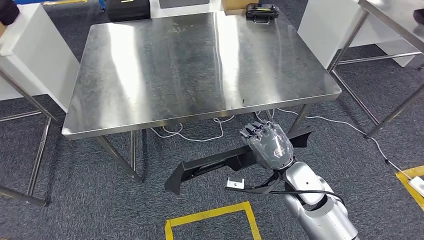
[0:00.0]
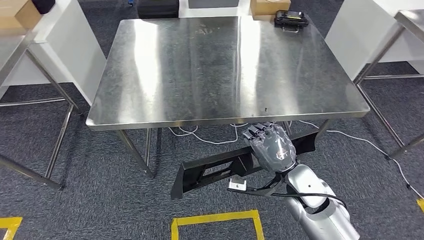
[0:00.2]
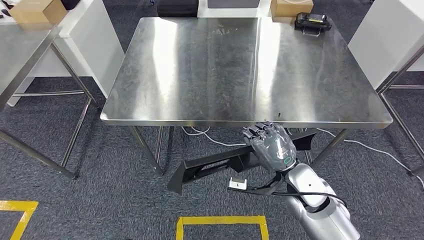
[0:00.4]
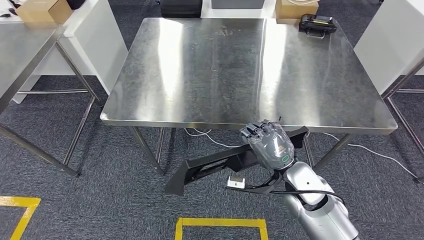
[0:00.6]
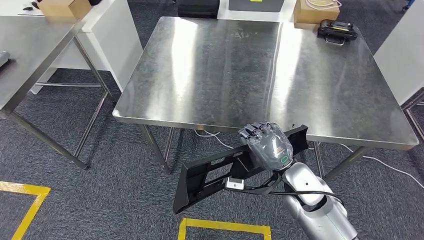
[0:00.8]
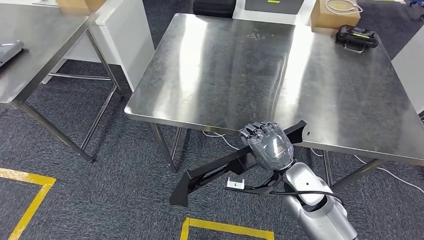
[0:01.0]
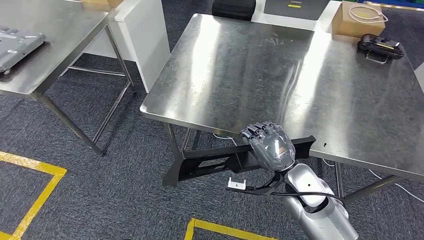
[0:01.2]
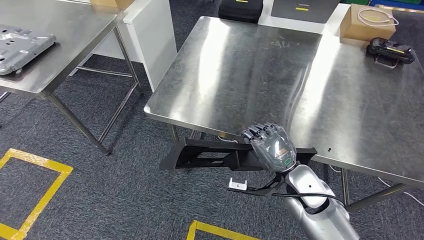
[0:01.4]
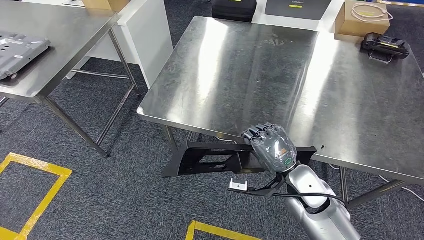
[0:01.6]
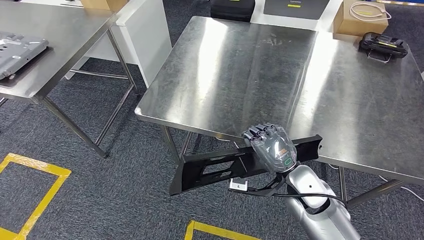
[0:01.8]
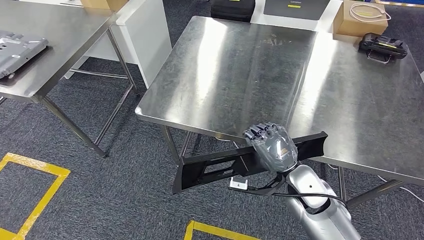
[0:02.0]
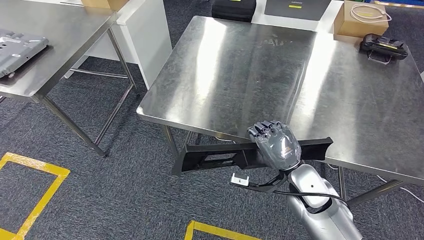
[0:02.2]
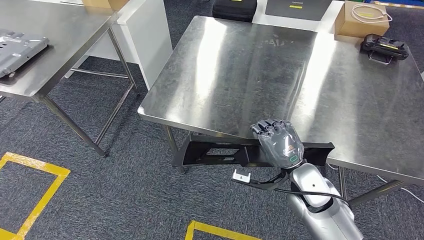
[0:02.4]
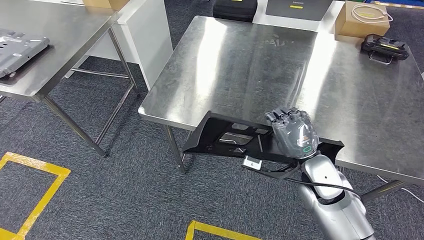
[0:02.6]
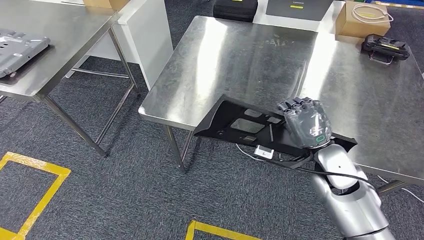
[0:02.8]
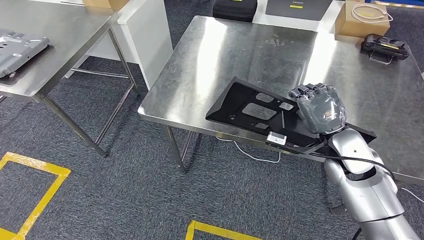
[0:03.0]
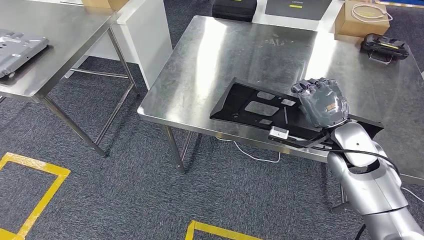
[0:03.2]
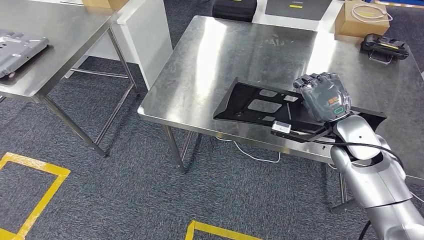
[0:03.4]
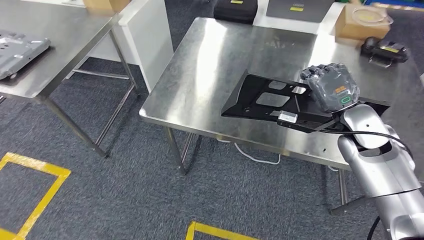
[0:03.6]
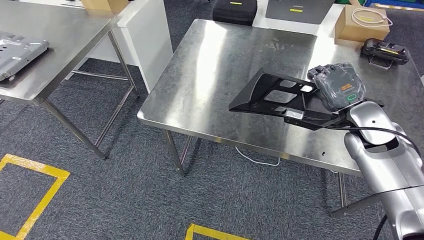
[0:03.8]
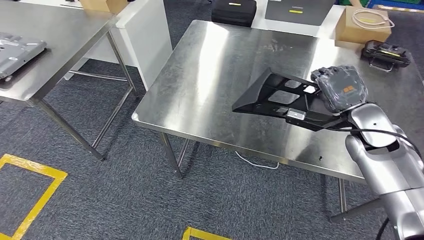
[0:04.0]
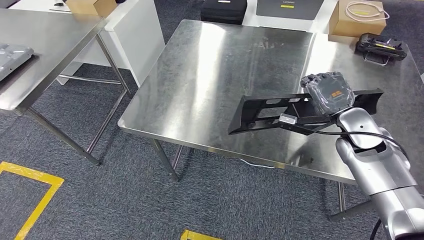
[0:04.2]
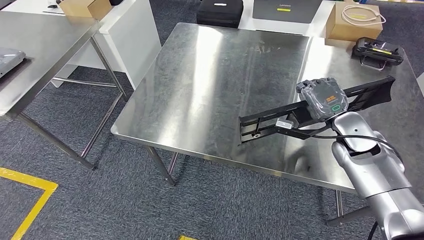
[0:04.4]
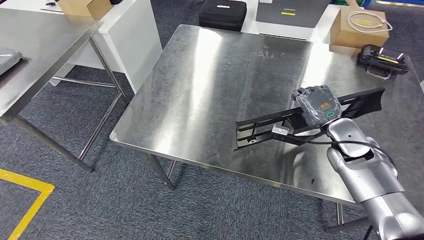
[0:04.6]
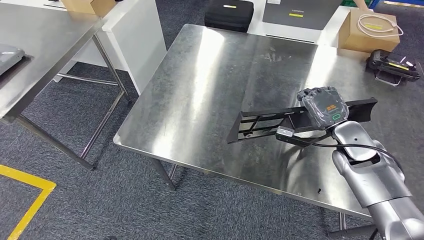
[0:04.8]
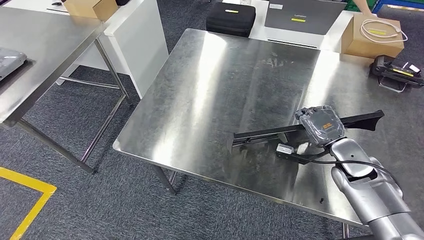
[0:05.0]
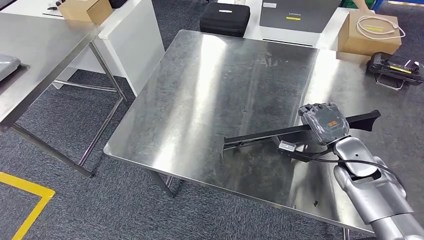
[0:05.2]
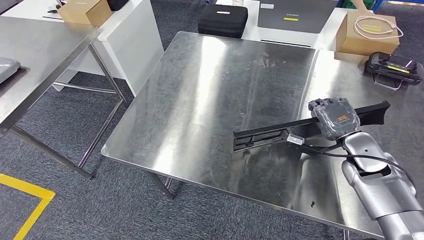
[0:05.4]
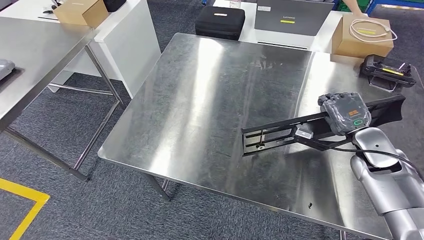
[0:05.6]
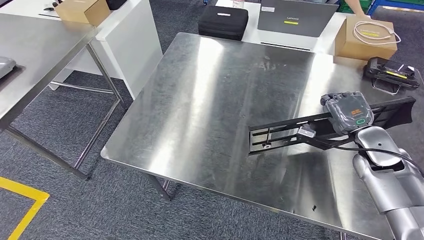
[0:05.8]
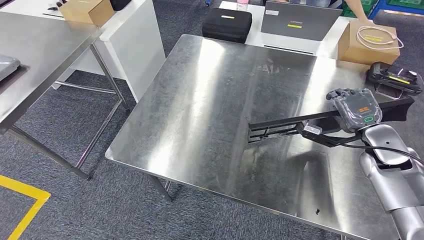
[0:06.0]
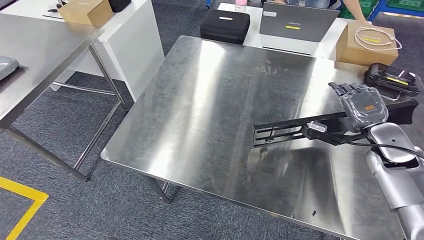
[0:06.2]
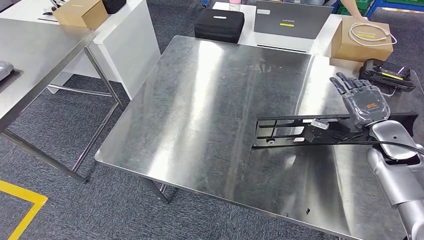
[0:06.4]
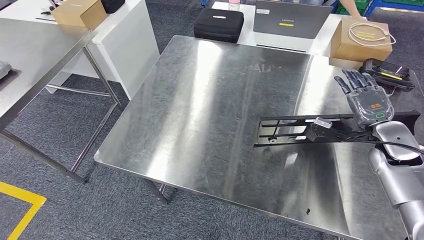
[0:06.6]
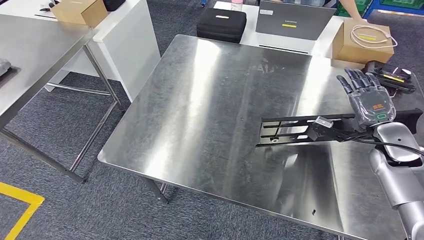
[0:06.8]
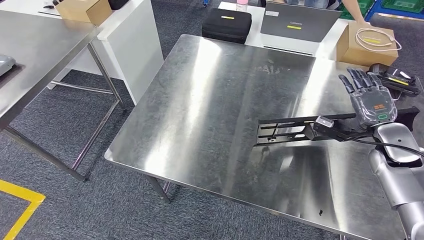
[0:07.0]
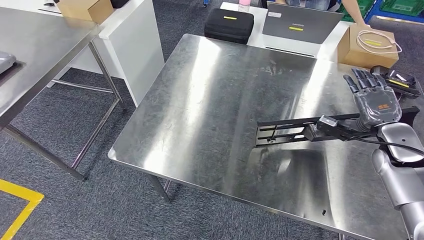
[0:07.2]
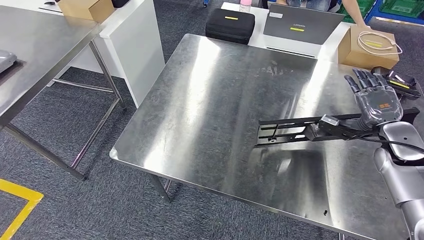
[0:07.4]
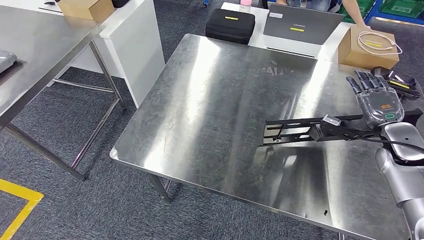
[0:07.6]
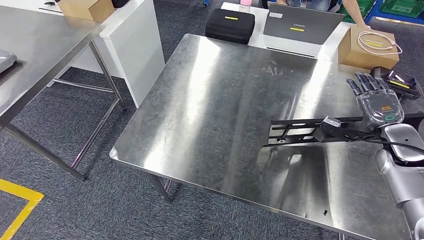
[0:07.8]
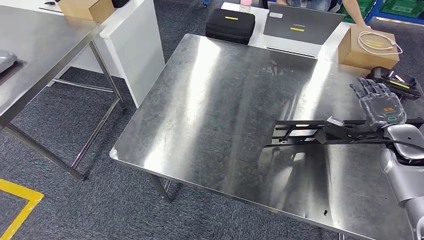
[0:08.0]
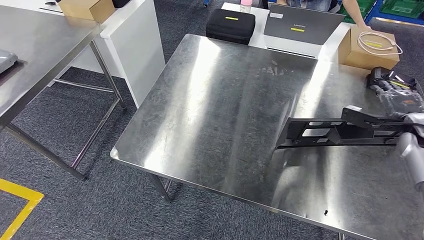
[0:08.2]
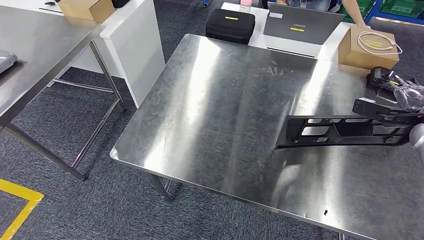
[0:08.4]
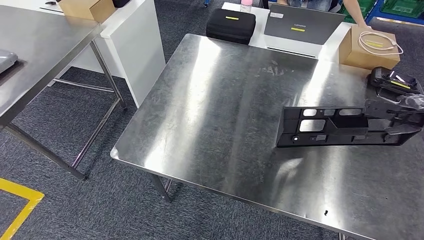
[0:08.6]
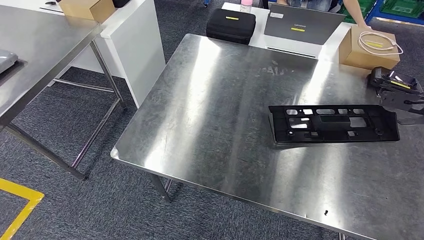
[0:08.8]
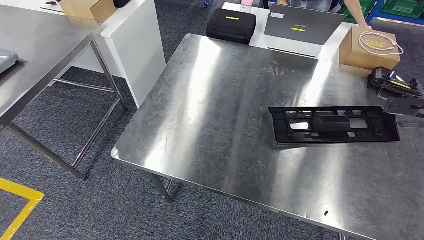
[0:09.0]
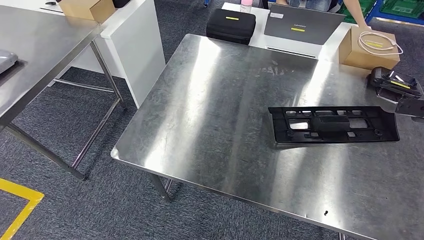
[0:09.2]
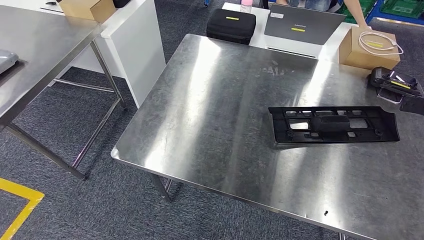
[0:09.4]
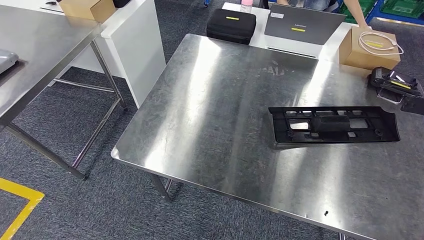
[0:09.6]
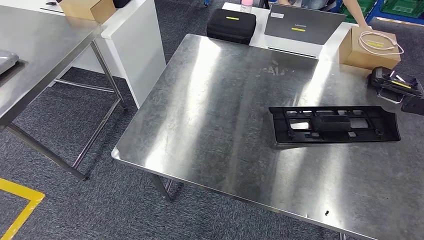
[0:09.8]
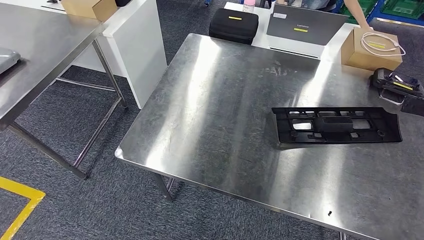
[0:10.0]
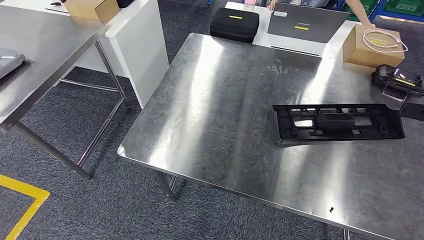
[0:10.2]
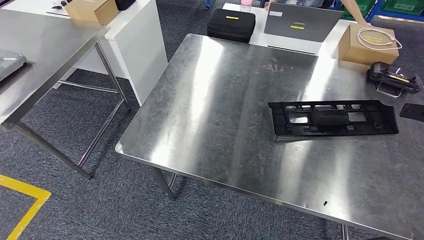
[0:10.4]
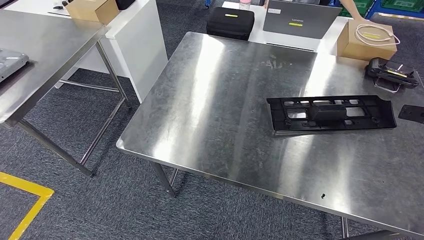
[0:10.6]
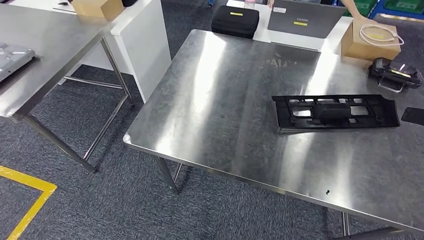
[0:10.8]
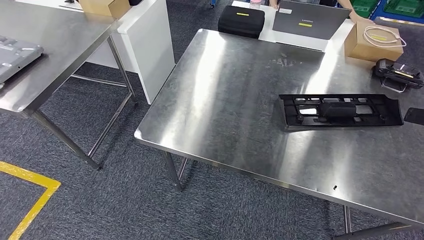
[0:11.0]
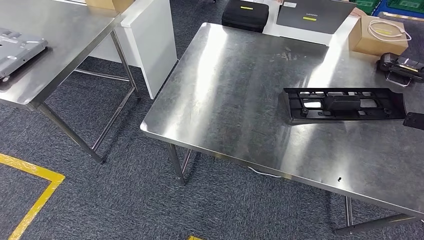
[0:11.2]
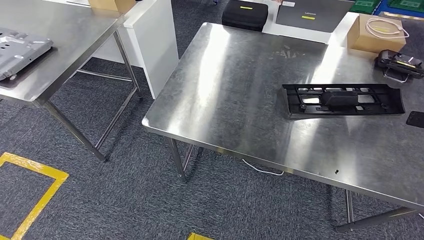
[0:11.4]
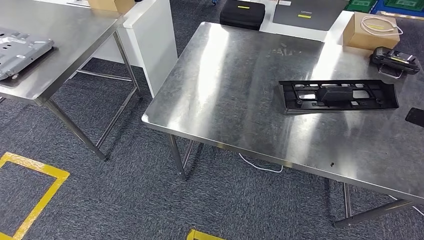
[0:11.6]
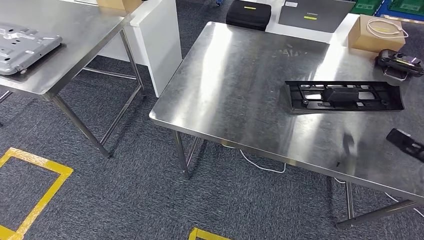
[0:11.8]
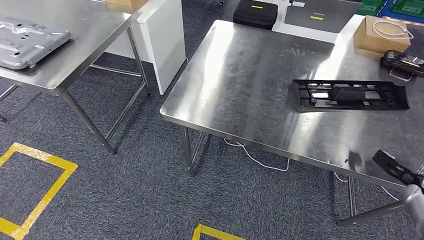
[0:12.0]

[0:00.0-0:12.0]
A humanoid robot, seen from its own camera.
Step, 0:00.0 to 0:09.0: Insert the large material into the corresponding slot on the workbench.
0:07.6 to 0:09.0: The right hand moves to the right and upward, about 15 cm.

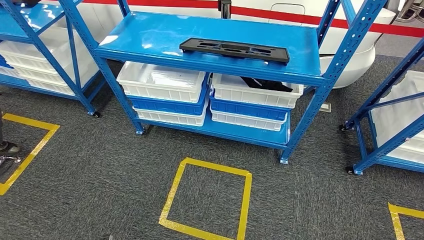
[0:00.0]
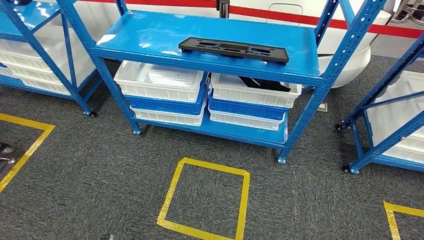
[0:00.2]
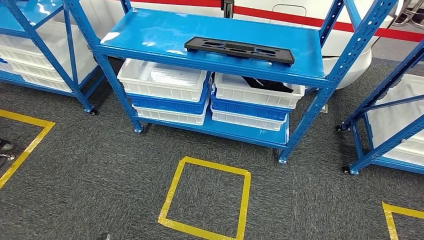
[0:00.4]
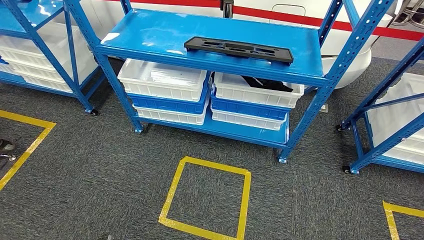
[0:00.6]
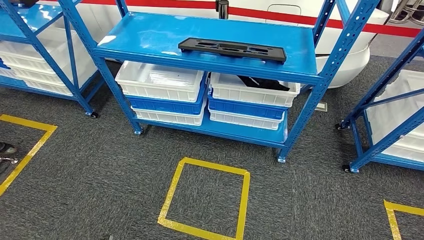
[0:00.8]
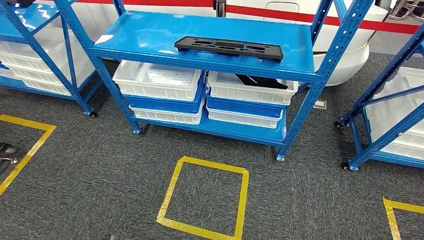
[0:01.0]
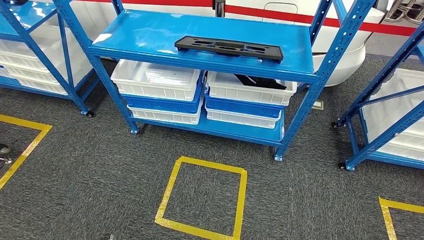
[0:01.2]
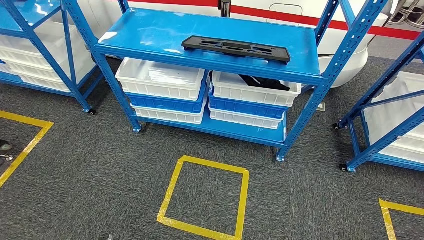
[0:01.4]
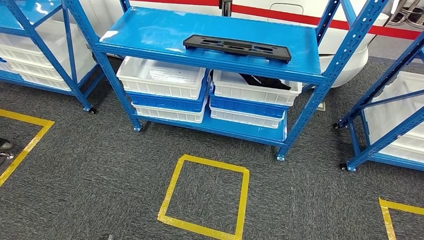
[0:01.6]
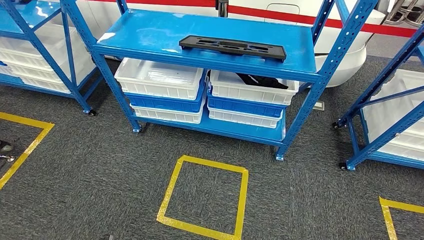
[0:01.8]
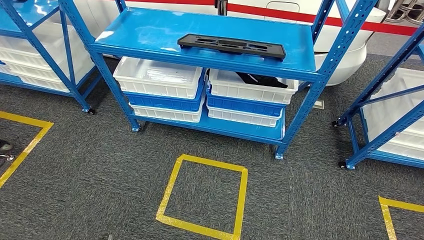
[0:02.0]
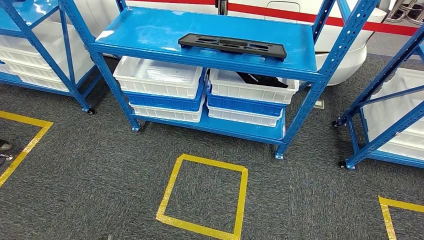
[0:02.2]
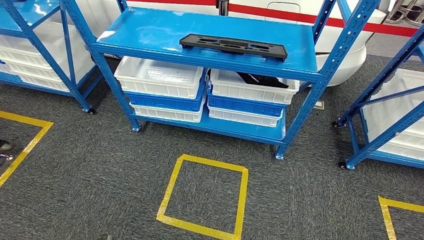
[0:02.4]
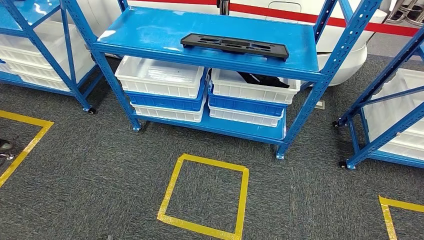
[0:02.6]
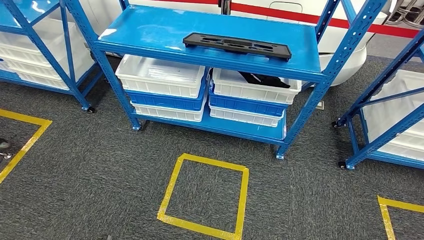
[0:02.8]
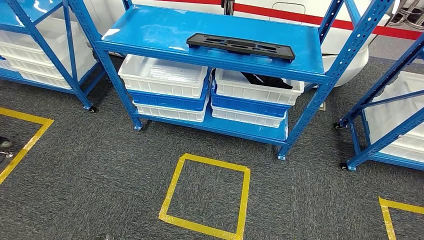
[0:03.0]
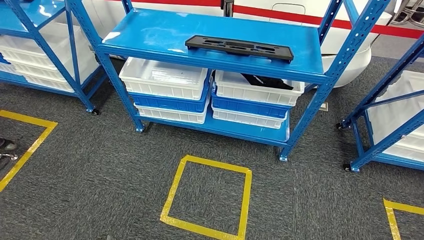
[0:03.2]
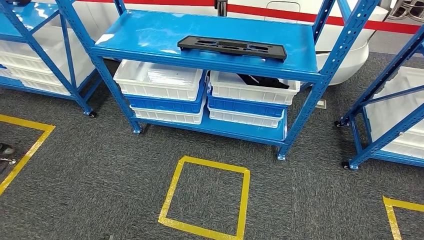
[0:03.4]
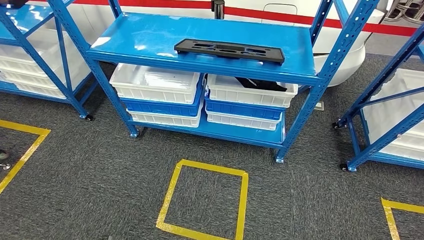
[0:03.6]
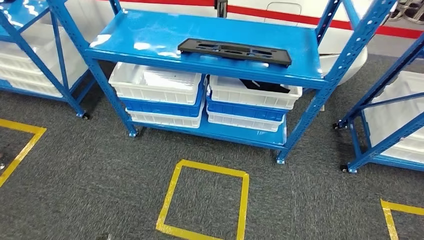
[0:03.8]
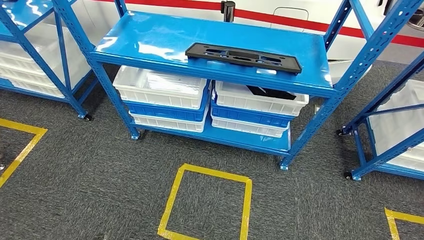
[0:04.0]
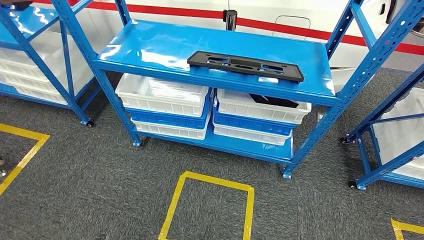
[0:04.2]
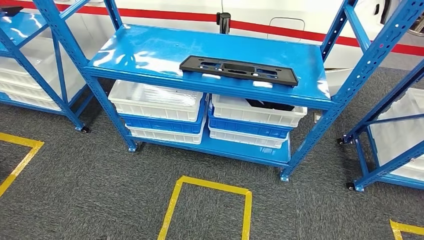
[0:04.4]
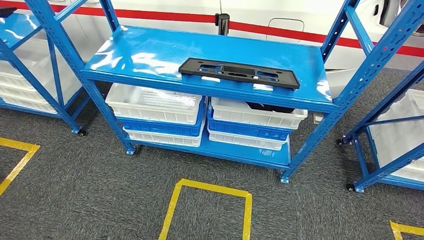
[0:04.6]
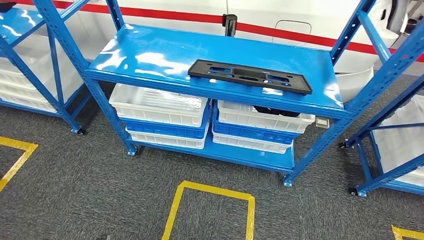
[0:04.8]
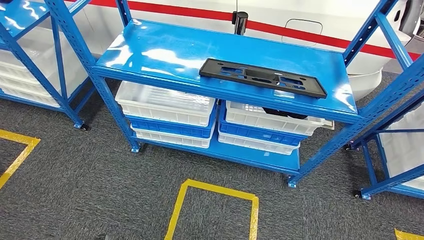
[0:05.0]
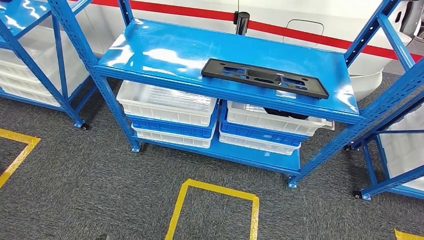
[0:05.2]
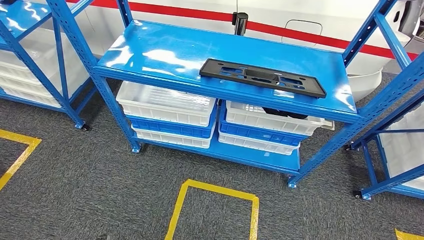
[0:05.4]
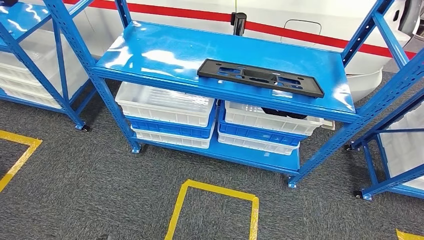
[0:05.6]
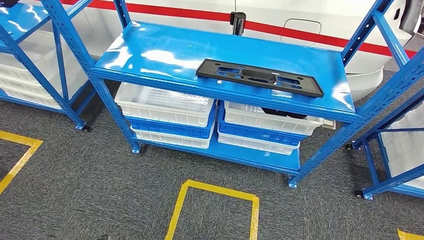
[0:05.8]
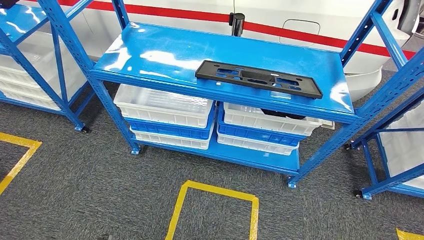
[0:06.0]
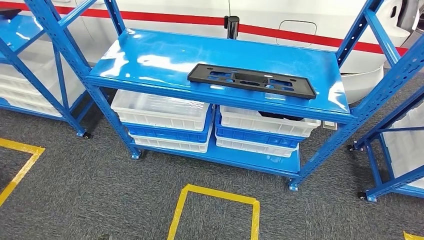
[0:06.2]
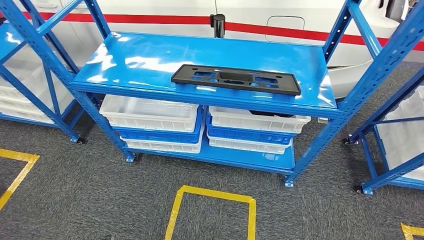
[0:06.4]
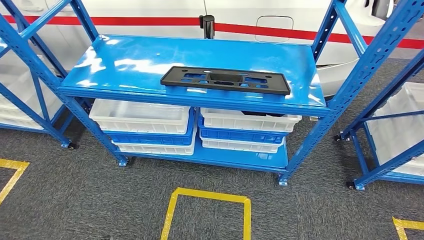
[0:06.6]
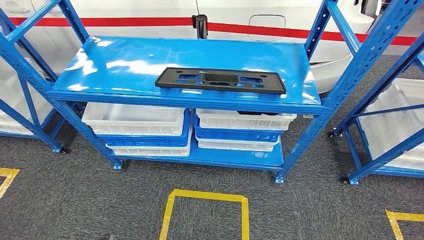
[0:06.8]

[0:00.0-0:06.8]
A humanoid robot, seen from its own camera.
Step, 0:00.0 to 0:06.8: Return to the initial position at the shelf.
